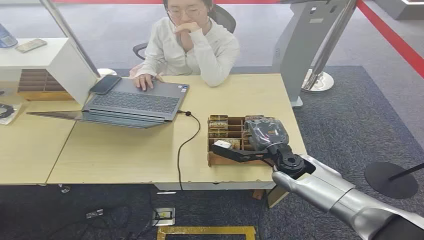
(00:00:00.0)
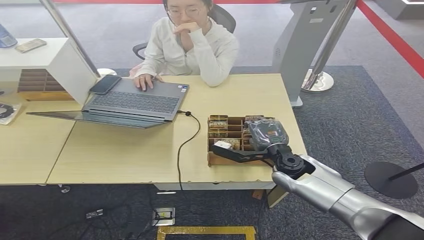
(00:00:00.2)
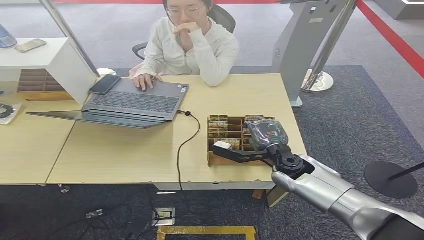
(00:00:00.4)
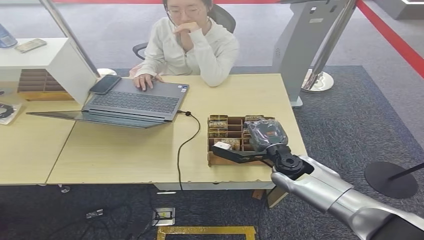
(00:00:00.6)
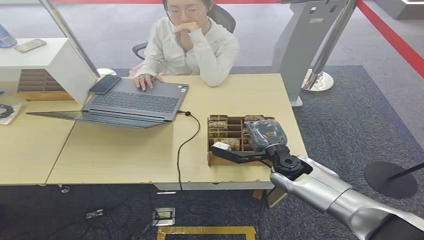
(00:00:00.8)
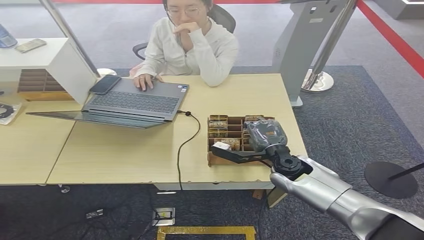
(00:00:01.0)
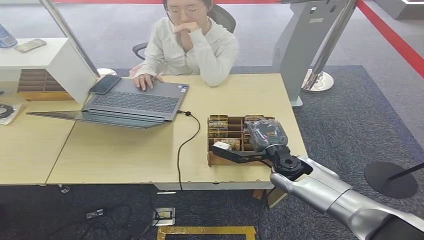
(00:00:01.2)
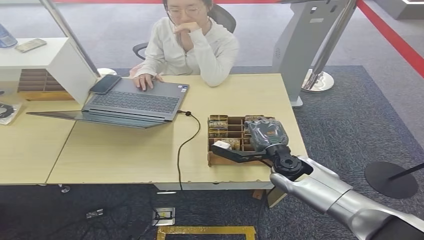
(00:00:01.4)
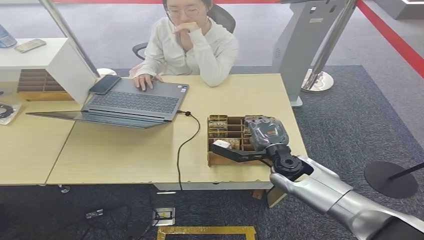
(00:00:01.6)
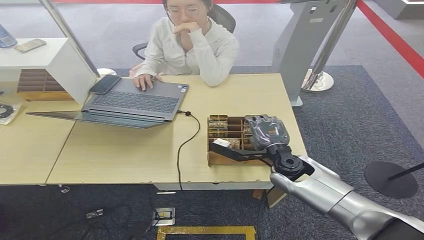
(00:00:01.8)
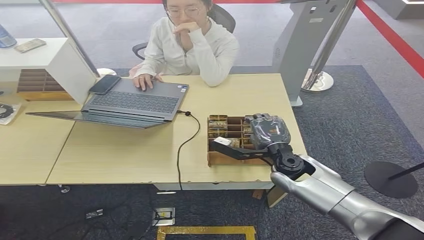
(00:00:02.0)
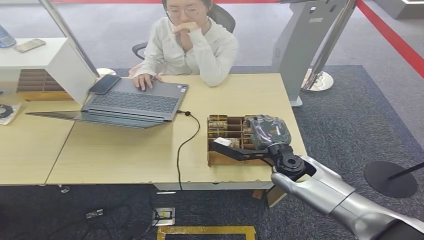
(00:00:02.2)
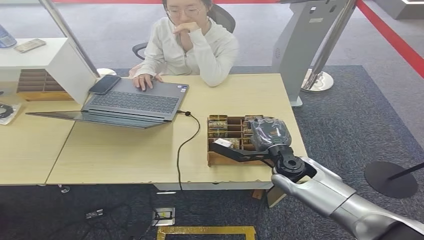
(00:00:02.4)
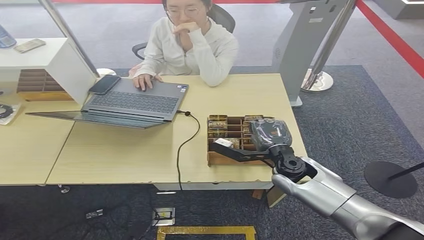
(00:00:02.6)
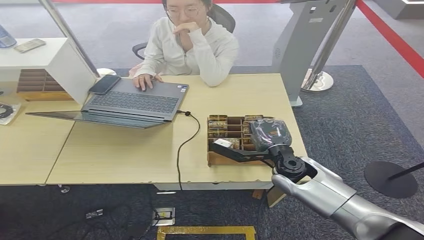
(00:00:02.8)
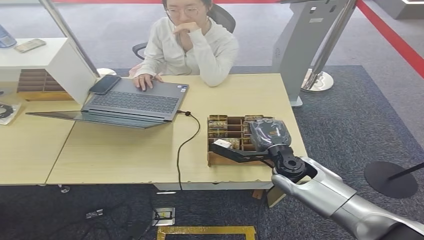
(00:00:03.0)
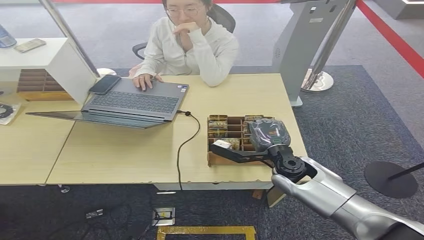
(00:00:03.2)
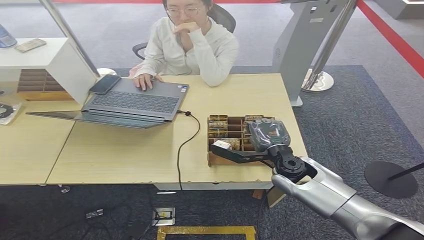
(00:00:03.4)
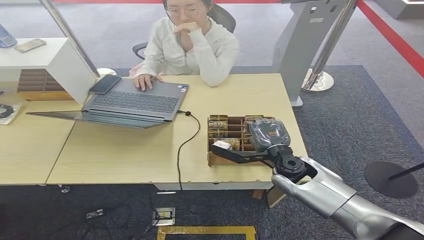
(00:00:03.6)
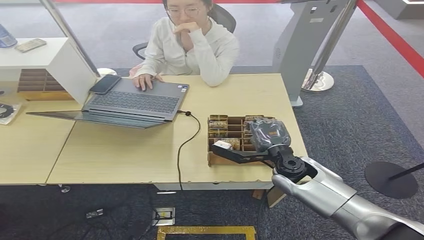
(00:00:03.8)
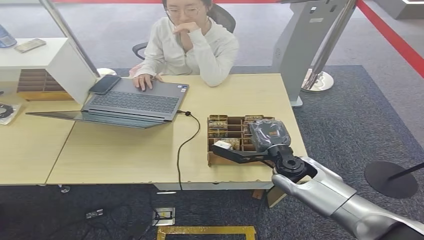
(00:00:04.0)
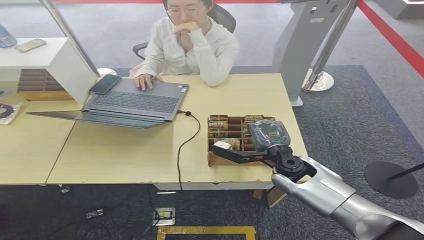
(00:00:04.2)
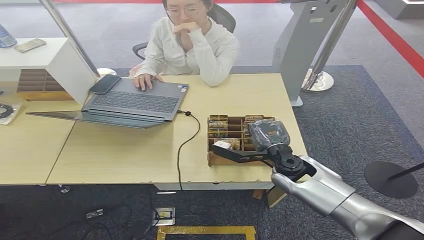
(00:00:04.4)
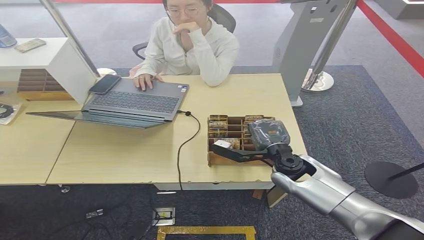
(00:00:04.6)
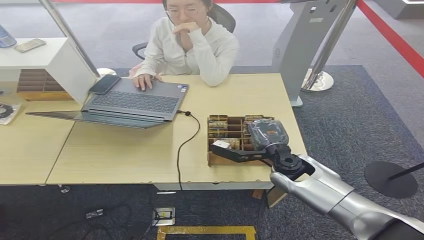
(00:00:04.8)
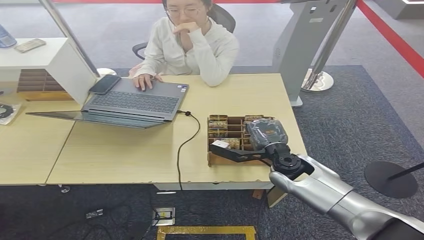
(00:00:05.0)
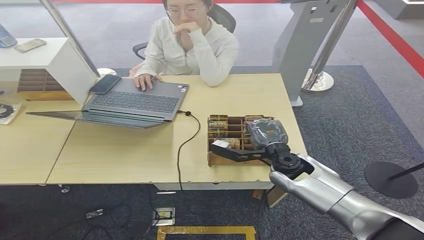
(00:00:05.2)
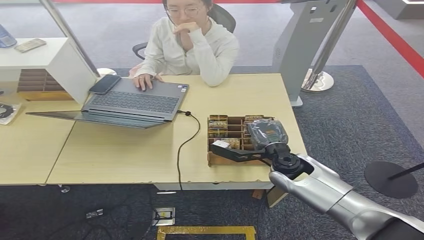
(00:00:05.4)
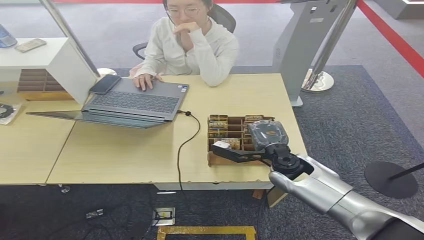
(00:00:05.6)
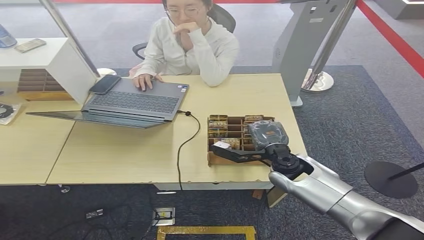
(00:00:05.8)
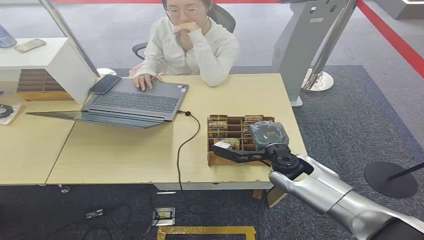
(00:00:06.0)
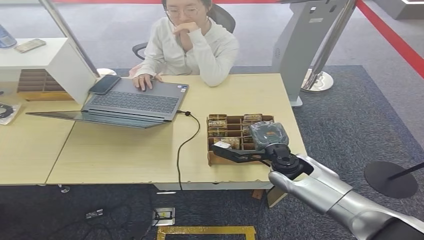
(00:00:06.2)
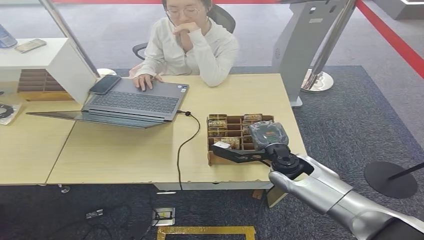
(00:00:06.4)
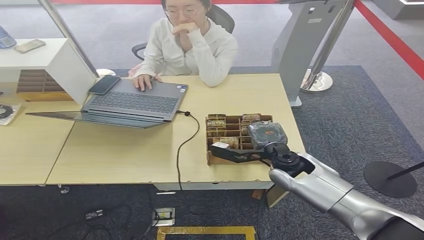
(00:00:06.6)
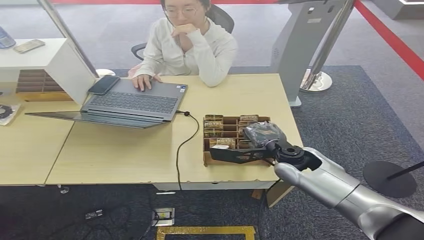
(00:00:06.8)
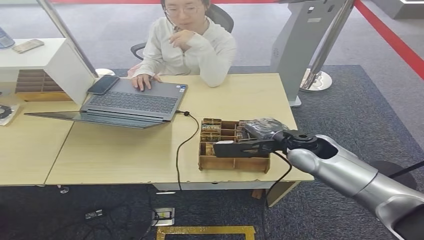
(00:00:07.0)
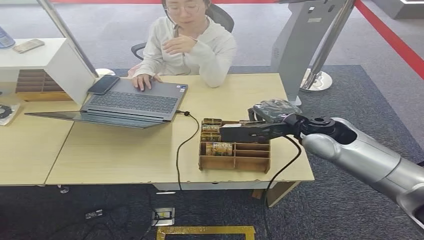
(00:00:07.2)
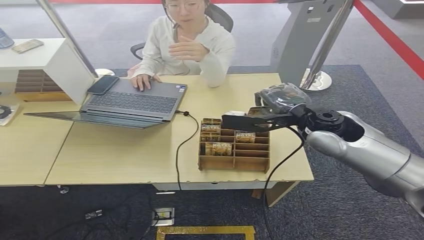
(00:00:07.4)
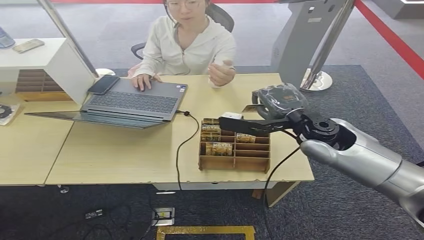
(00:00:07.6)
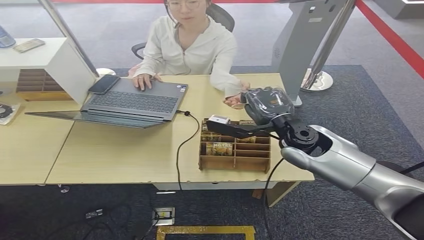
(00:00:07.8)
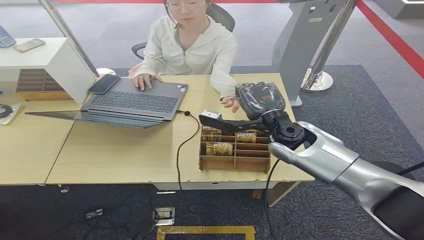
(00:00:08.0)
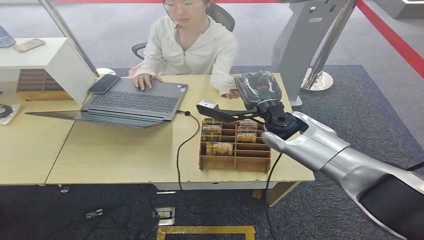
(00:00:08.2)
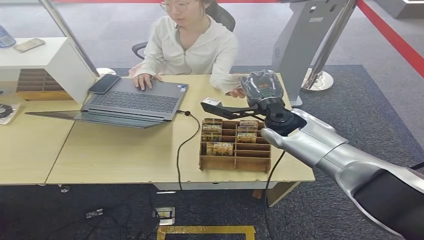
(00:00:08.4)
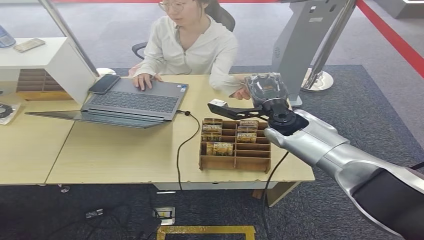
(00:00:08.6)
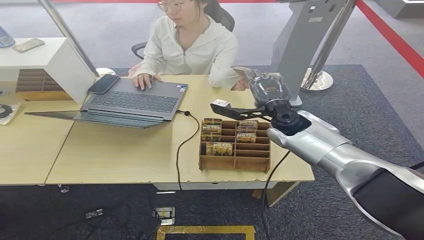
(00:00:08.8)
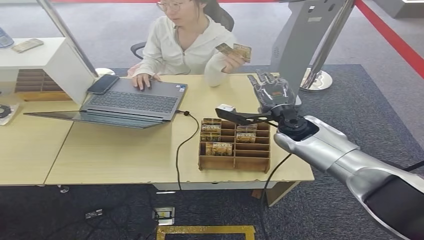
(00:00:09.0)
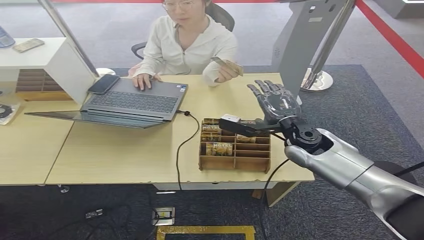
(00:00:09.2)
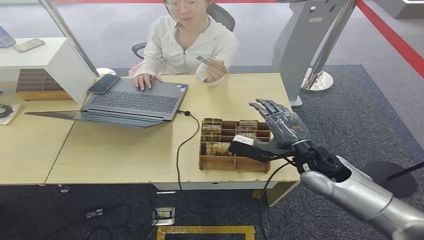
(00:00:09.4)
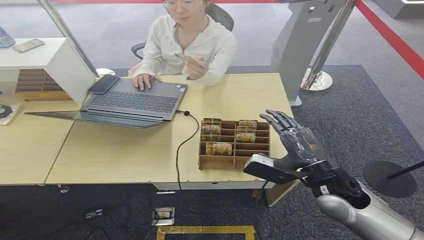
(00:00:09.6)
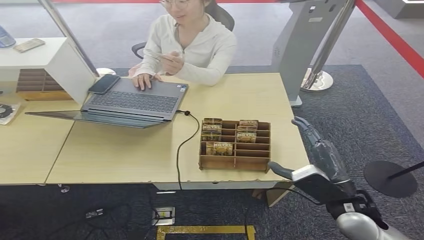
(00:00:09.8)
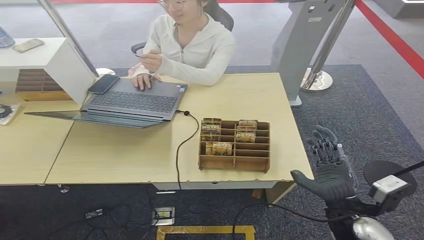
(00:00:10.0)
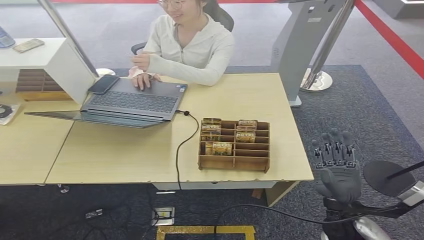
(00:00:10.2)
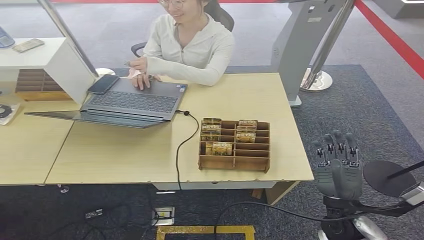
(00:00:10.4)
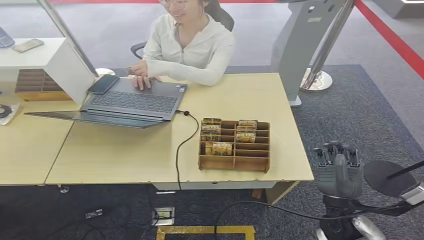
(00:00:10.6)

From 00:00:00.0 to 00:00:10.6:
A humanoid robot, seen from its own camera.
Step, from 00:00:00.0 to 00:00:06.8: Pick up the room card from the card holder.
Step, from 00:00:07.0 to 00:00:10.4: Hand the room card to the target.
From 00:00:01.6 to 00:00:04.6: The two hands keep their place.
From 00:00:04.6 to 00:00:06.0: The hands stay close to where they were, moving slightly.
From 00:00:06.0 to 00:00:07.6: The right hand moves upward, about 15 cm.
From 00:00:07.6 to 00:00:09.0: The right hand moves downward and forward, roughly 10 cm.
From 00:00:09.0 to 00:00:10.6: The right hand is displaced backward, downward and to the right by approximately 25 cm.
